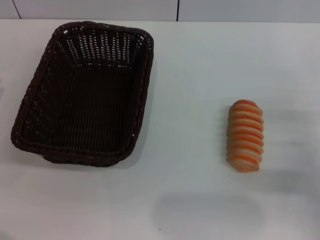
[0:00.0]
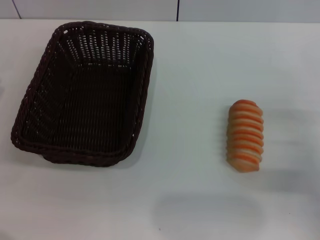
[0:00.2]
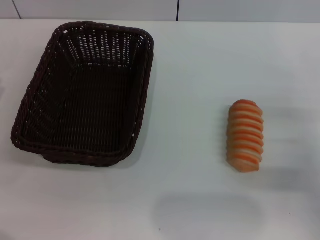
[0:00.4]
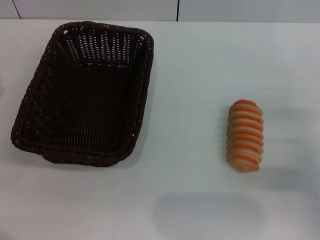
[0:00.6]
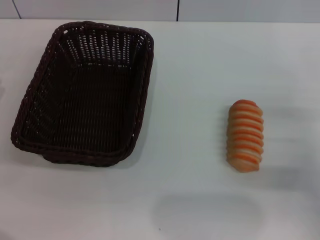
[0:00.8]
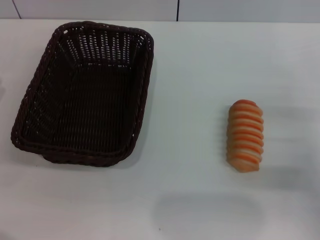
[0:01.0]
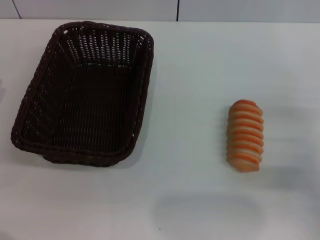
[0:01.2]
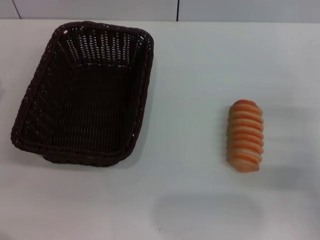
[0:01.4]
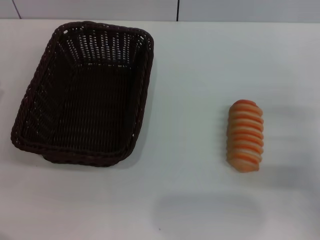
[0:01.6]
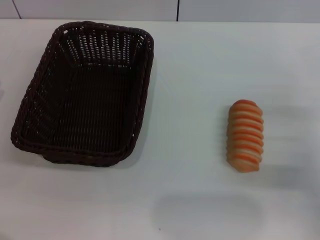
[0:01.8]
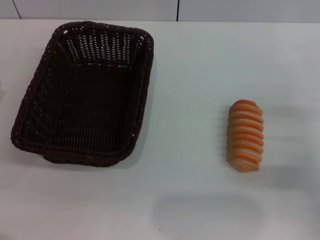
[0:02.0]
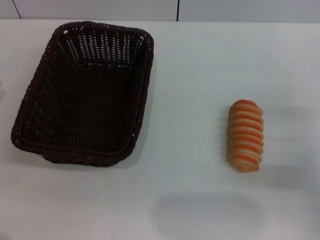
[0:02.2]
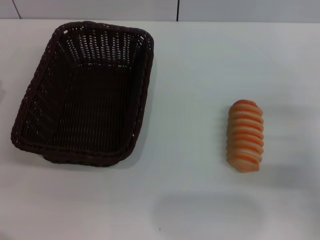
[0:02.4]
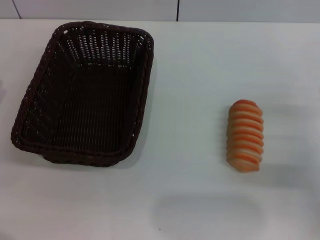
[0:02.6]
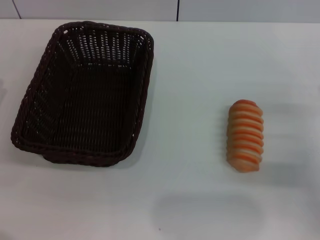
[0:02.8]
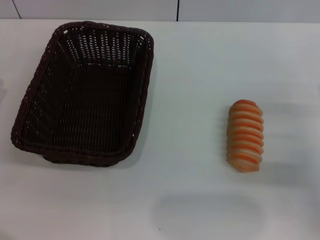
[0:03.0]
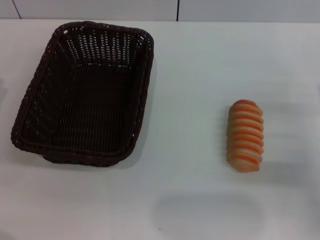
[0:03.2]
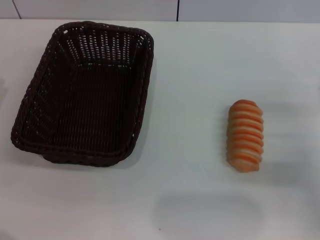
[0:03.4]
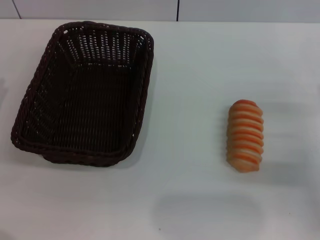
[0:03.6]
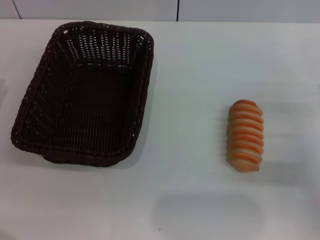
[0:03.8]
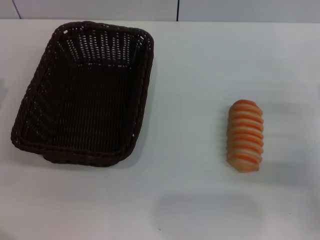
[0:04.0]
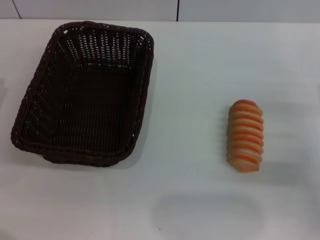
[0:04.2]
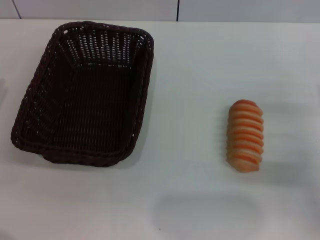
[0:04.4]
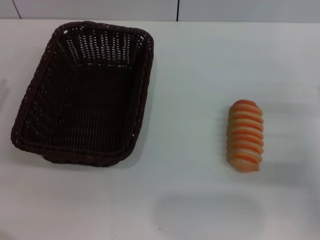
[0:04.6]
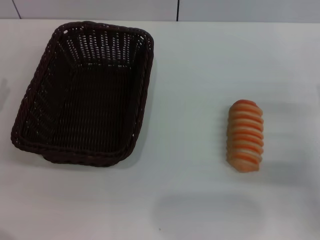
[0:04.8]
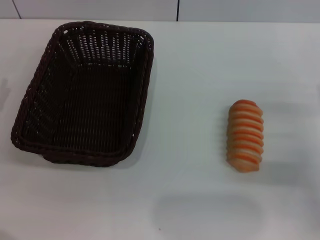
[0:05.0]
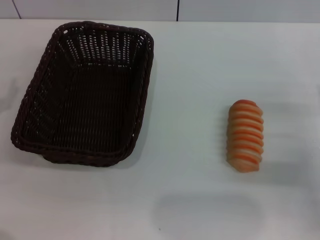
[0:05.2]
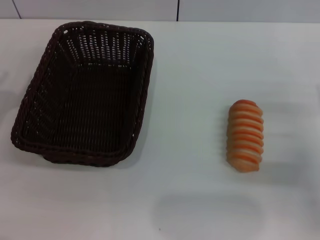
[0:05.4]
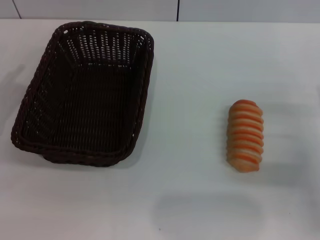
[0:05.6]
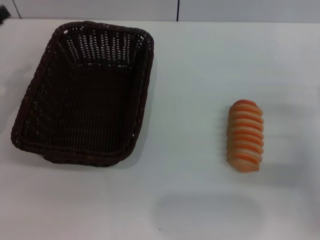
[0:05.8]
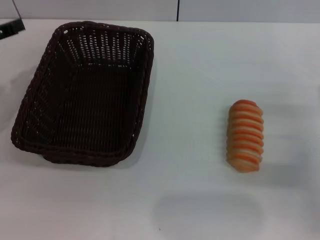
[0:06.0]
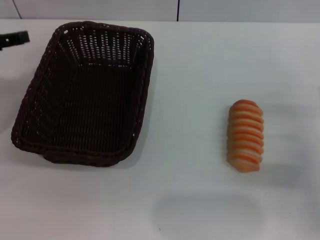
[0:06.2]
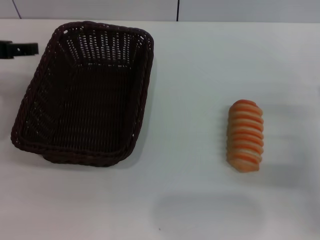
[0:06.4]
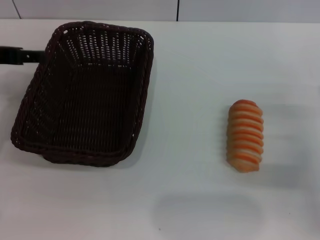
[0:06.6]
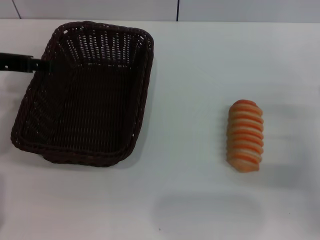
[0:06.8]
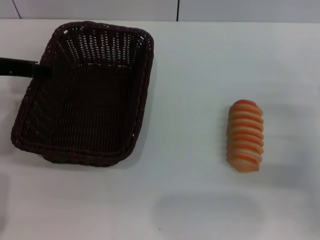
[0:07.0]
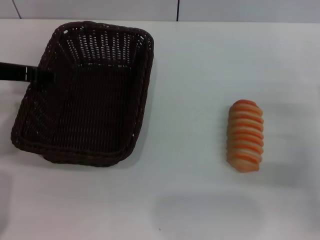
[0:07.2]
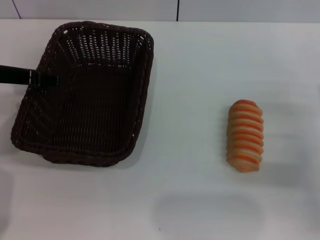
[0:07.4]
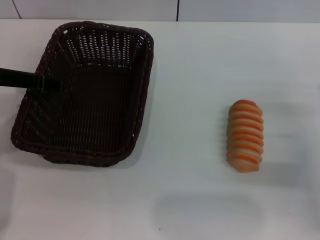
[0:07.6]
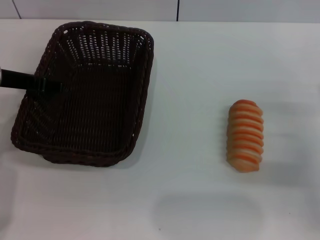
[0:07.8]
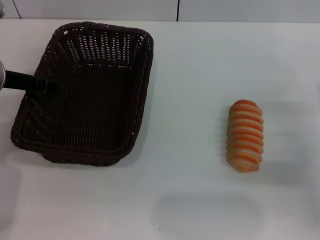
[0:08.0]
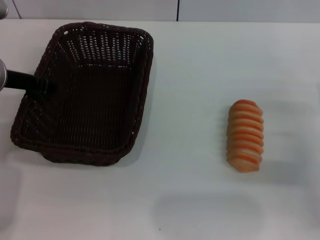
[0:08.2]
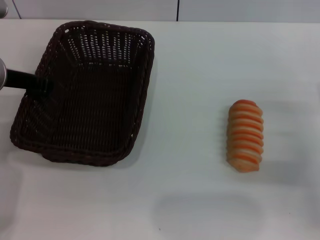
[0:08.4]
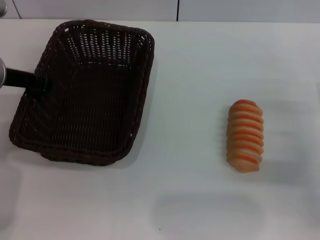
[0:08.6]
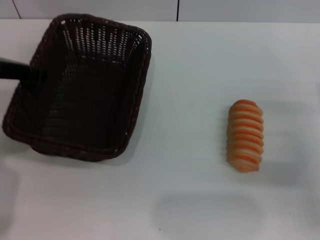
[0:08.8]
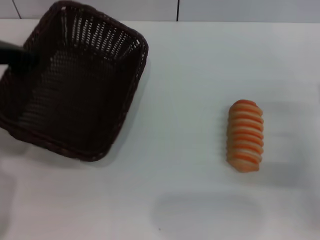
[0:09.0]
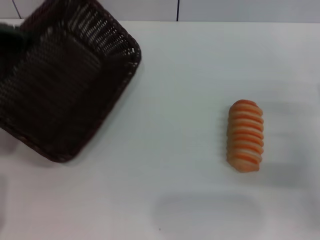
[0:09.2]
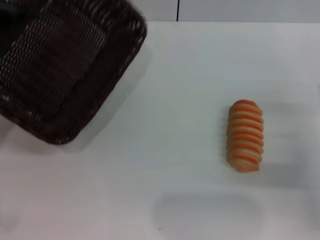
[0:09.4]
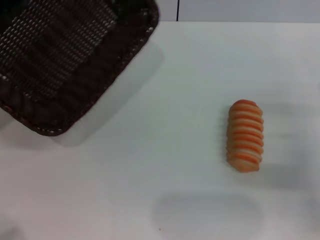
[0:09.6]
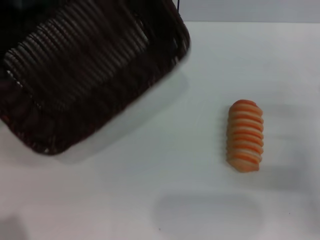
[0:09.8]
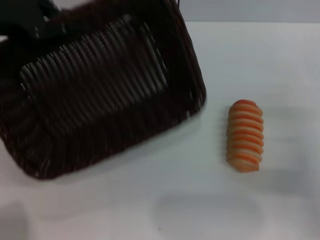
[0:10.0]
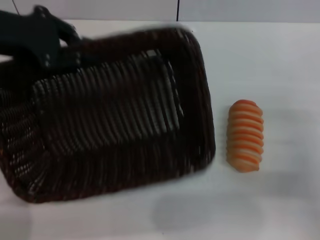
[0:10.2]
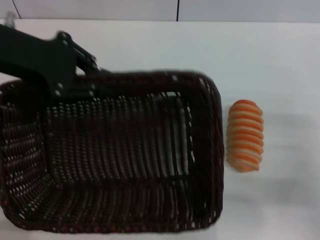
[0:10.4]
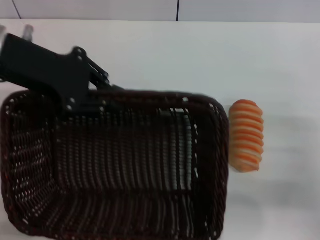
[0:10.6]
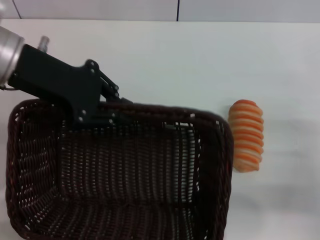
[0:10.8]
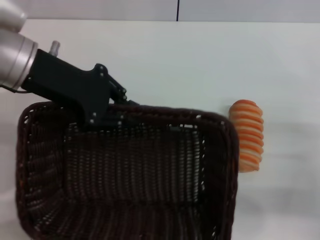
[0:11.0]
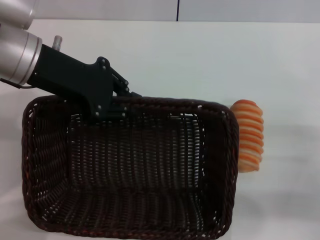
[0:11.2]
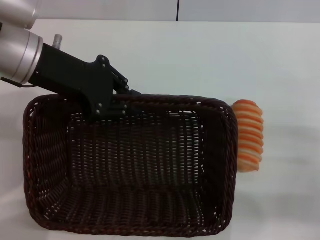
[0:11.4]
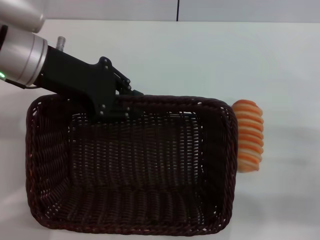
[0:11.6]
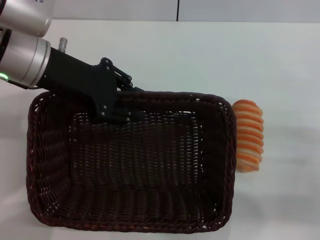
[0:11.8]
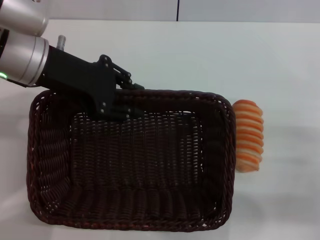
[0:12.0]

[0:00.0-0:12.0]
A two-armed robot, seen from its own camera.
Step, 0:00.0 to 0:09.2: Pick up the dark basket with the left gripper.
0:00.0 to 0:01.6: The two grippers keep their place.
0:01.6 to 0:04.4: The two grippers keep their place.
0:06.0 to 0:07.6: The left gripper shifts approximately 10 cm to the right.
0:07.6 to 0:09.0: The left gripper closes its fingers.
0:09.0 to 0:10.4: The left gripper changes place by approximately 5 cm.
0:10.4 to 0:12.0: The left gripper changes place by some 5 cm.

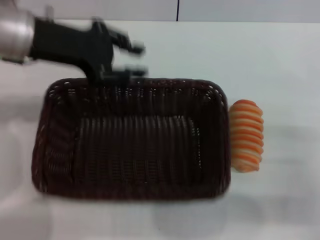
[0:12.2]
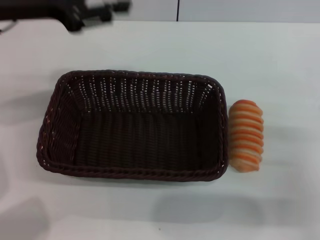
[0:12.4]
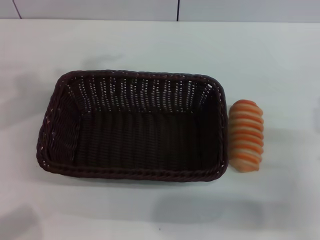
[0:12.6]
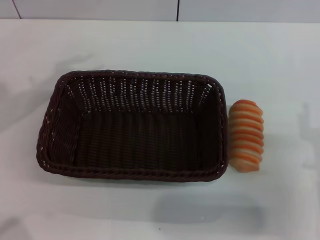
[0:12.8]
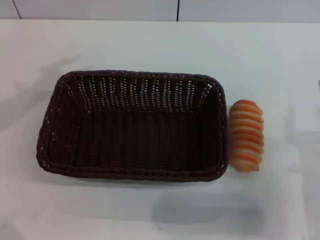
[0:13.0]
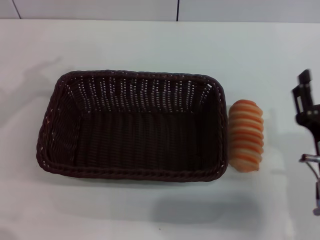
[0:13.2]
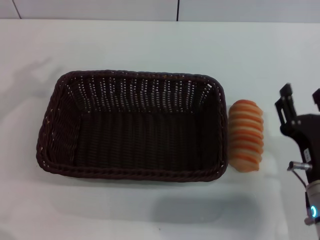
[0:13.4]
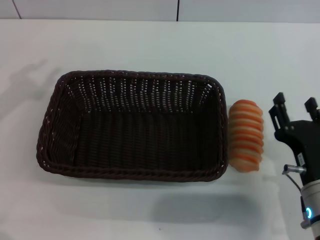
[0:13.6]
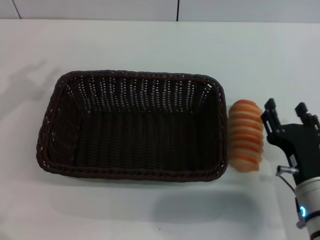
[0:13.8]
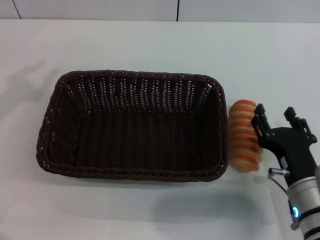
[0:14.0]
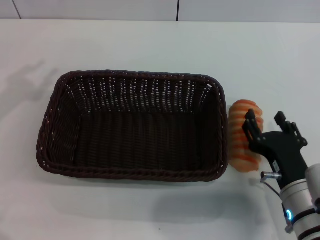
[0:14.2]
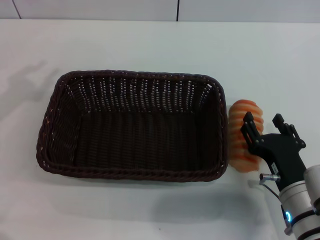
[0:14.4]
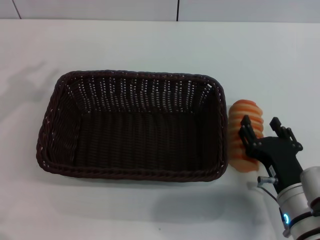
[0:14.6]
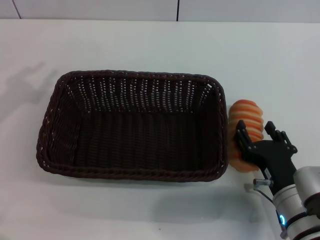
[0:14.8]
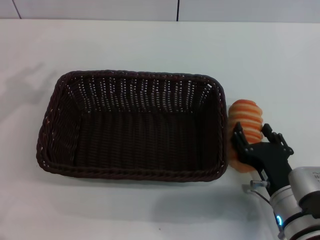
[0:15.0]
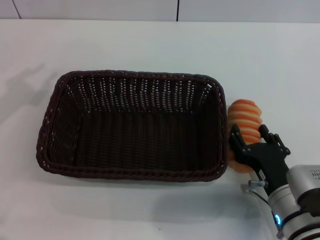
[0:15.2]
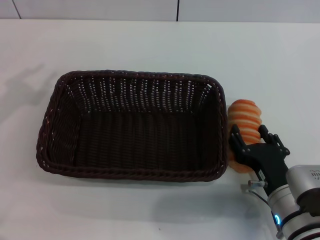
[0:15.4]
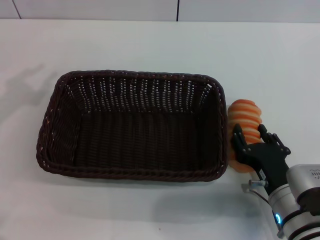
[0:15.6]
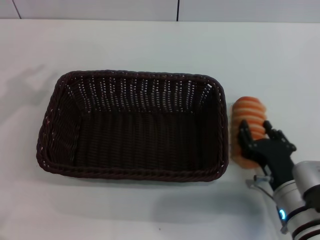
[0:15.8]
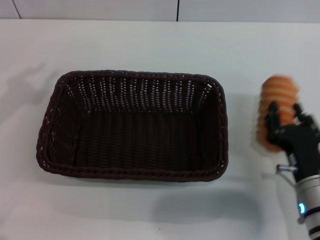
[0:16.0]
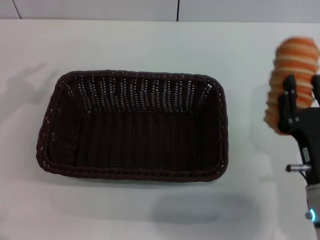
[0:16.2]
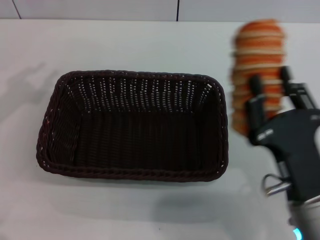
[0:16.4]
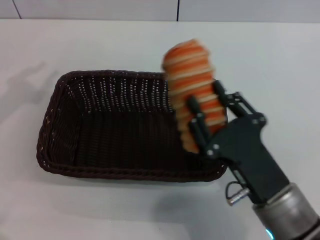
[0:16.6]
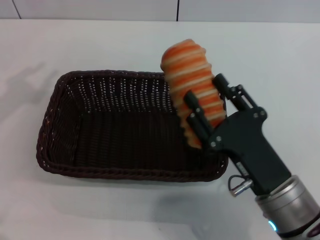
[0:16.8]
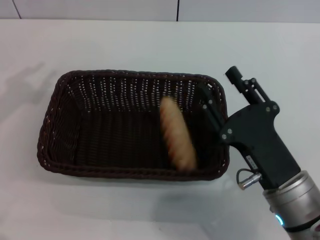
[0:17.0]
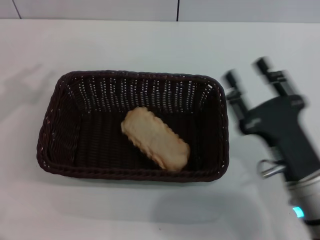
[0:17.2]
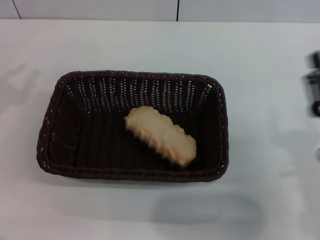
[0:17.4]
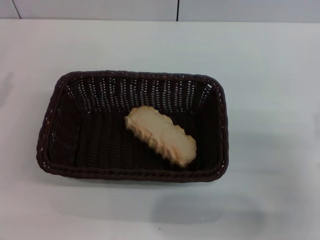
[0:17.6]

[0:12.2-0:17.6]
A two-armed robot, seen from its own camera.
Step, 0:12.4 to 0:15.8: Pick up the long bread with the right gripper.
Step, 0:16.0 to 0:16.8: Place the long bread into the dark basket with the right gripper.
0:12.2 to 0:13.6: The left gripper moves to the left and backward, some 15 cm; the right gripper goes some 10 cm to the left.
0:13.6 to 0:15.0: The grippers stay close to where they were, moving slightly.
0:15.0 to 0:16.2: The right gripper shifts by some 5 cm, and closes.
0:16.2 to 0:17.6: The left gripper heads downward, covering about 5 cm; the right gripper moves to the right, about 10 cm, and opens its fingers.
